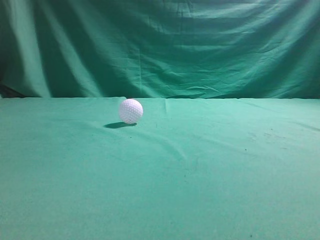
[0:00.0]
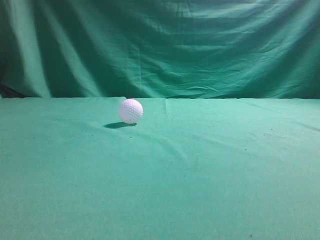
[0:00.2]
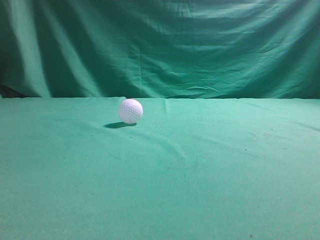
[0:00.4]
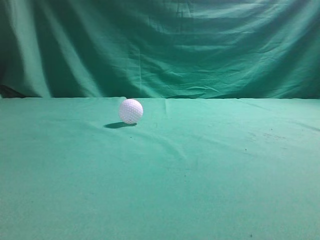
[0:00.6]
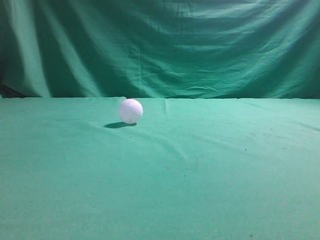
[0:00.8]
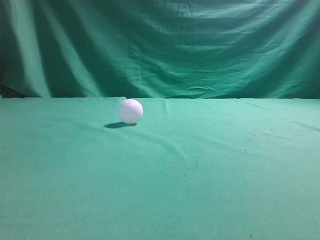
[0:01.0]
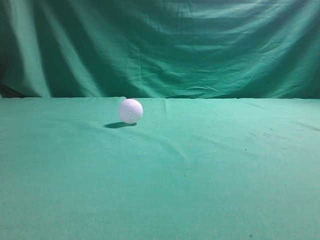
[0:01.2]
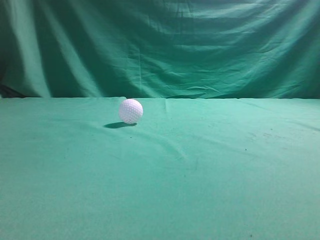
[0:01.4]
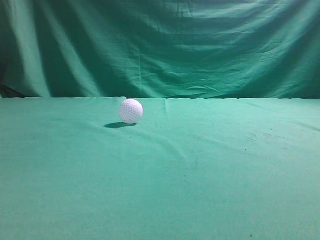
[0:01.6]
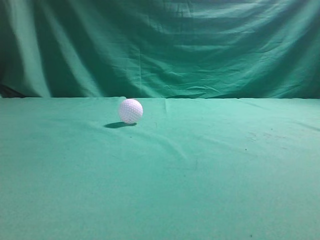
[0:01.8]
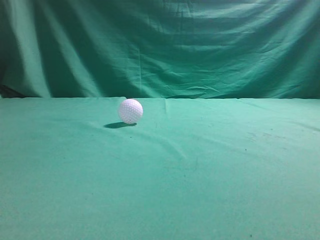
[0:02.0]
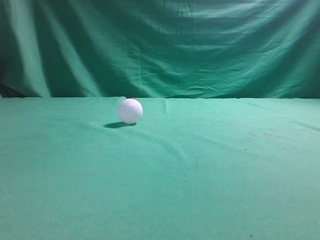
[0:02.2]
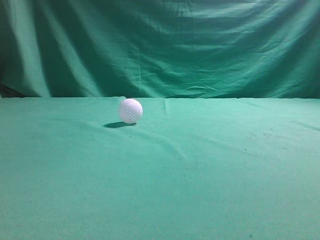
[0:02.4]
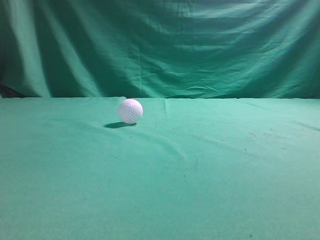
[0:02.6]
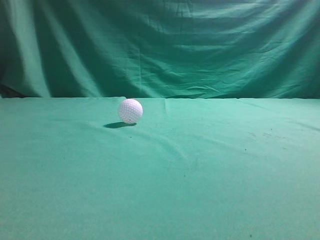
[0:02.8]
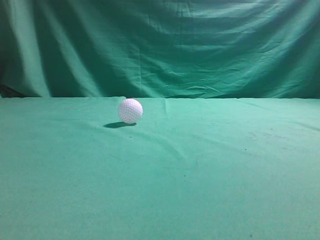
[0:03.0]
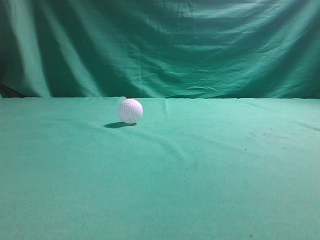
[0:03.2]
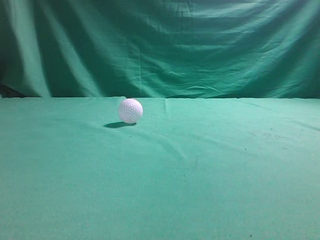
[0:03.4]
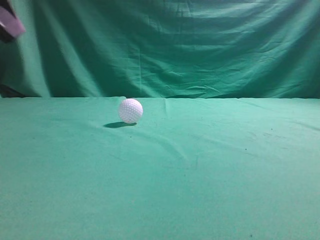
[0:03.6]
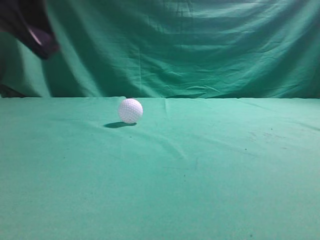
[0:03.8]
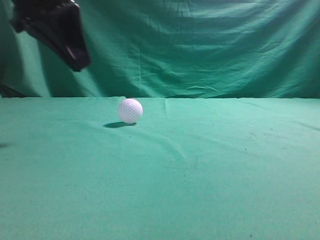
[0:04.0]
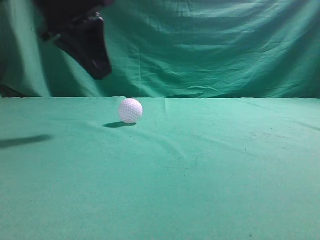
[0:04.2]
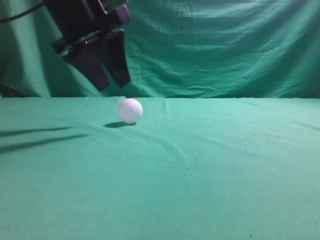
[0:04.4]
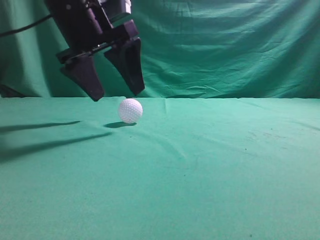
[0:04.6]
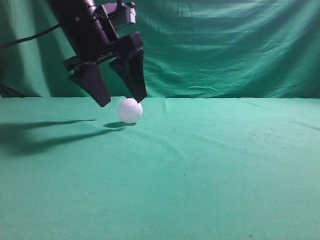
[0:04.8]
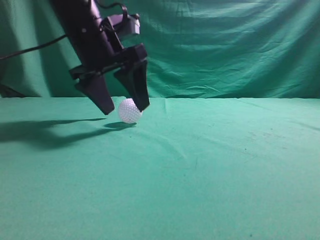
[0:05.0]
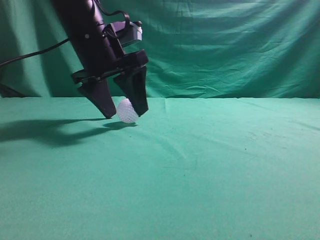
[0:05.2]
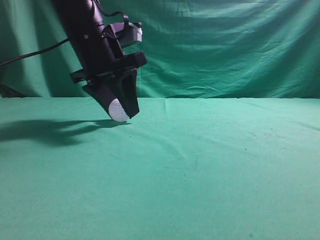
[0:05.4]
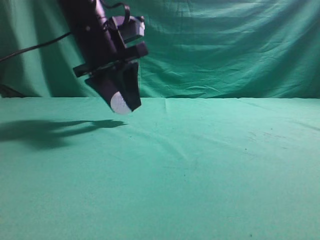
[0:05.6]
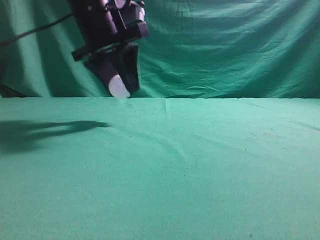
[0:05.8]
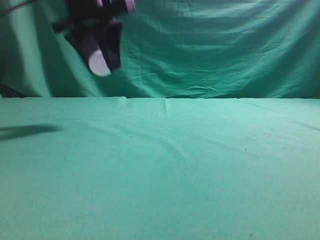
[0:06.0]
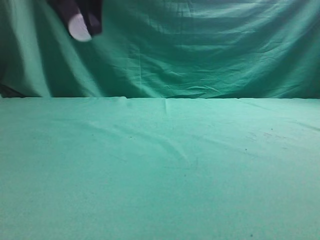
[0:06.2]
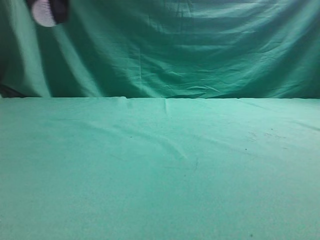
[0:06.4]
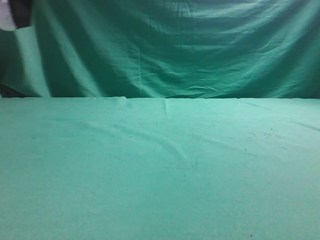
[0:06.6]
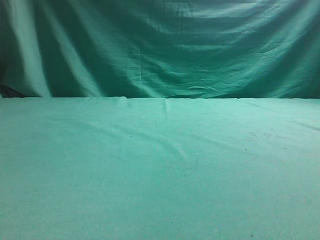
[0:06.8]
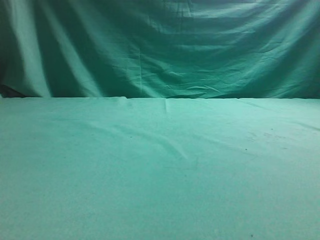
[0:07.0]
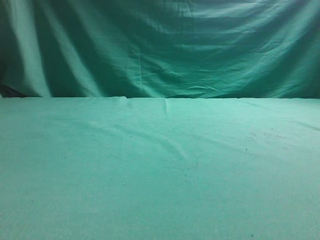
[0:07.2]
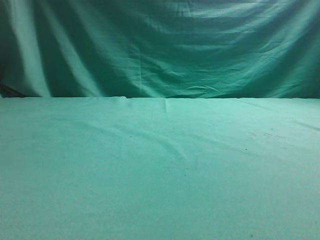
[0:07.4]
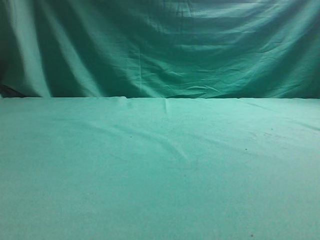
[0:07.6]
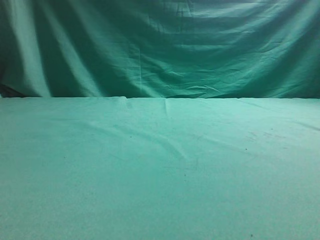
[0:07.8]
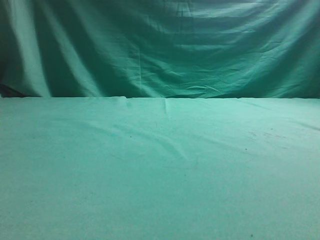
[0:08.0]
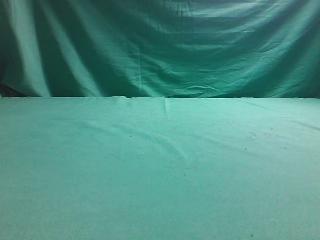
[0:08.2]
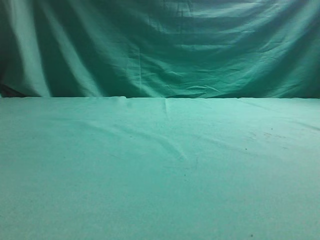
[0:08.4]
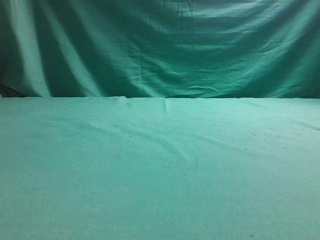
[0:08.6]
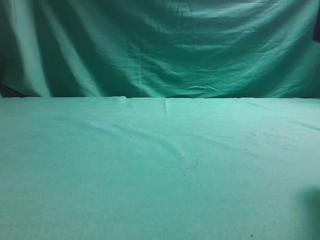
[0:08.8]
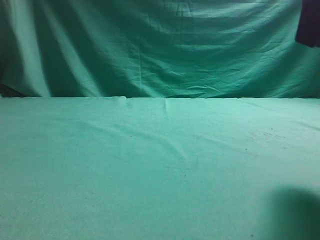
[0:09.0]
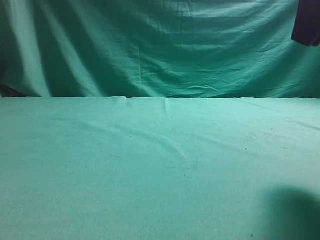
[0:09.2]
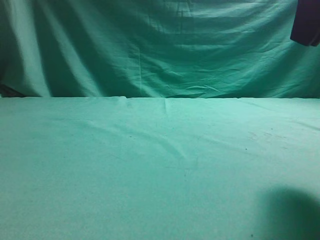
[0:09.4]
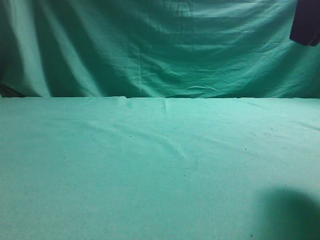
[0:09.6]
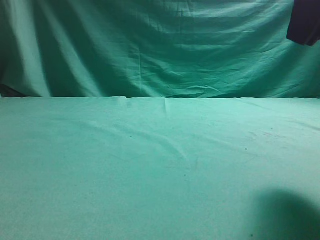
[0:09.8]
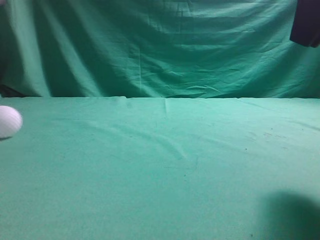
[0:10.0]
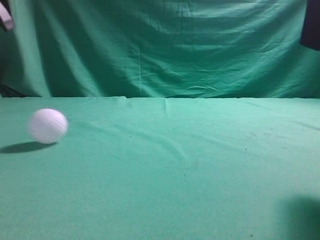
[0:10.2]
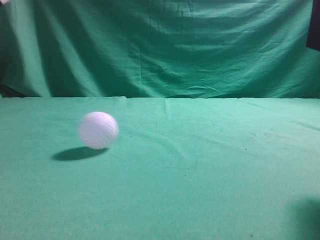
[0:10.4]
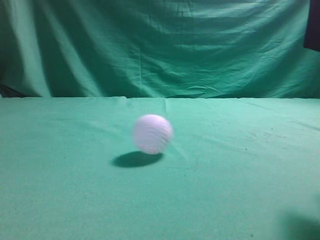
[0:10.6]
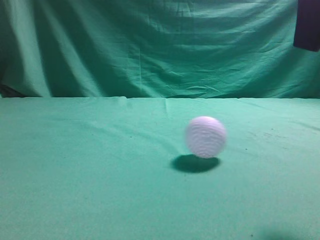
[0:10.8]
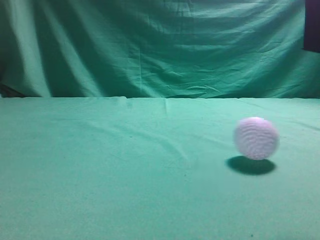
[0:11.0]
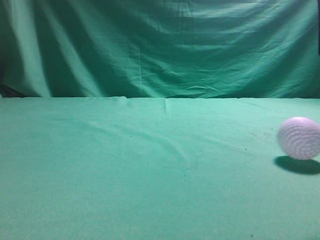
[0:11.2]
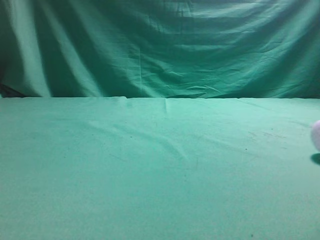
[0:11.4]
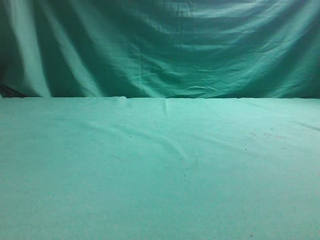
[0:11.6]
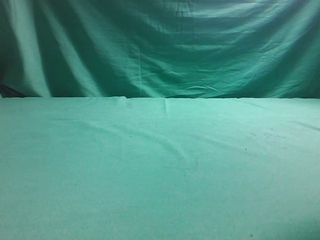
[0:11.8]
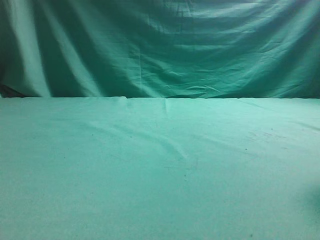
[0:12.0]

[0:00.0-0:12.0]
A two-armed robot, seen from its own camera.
Task of the whole recording: pick up the ball and place it on the plate, then pick up the ball from the plate and put it in the center of the table.
Step, 0:00.0 to 0:05.4: Grab the spherical object with your left arm.
Step, 0:05.8 to 0:09.4: Place the sphere on the white object.
0:03.0 to 0:04.4: The left gripper moves forward and to the right, about 30 cm, and opens.
0:04.4 to 0:06.0: The left gripper ends up roughly 5 cm from where it was, and opens, then closes once more.
0:06.0 to 0:07.6: The left gripper goes some 20 cm to the left and backward. Meanwhile the right gripper travels upward by roughly 10 cm.
0:07.6 to 0:09.0: The right gripper heads forward and to the left, covering approximately 15 cm.
0:09.0 to 0:10.4: The left gripper goes some 10 cm upward, and closes up.
0:10.4 to 0:12.0: The right gripper shifts roughly 5 cm to the right, and opens. Meanwhile the left gripper moves backward, some 20 cm.

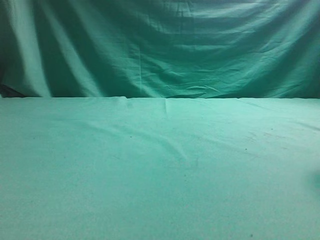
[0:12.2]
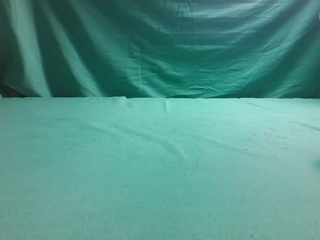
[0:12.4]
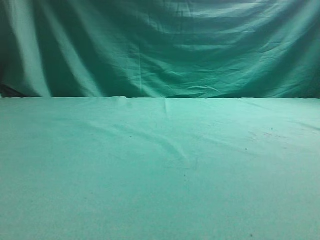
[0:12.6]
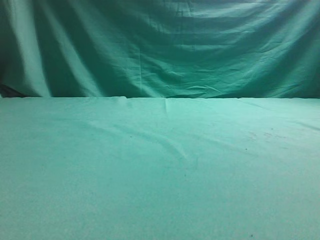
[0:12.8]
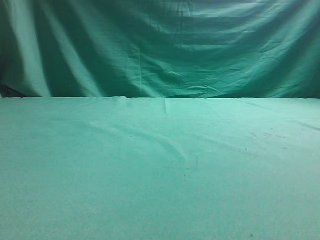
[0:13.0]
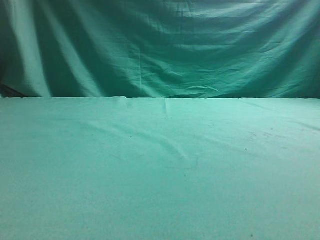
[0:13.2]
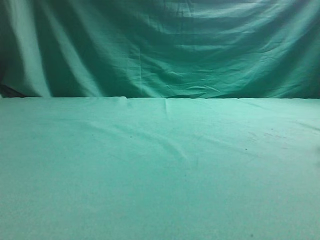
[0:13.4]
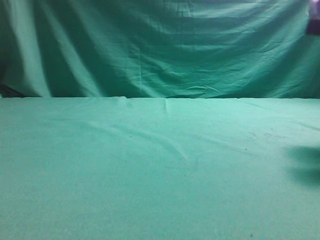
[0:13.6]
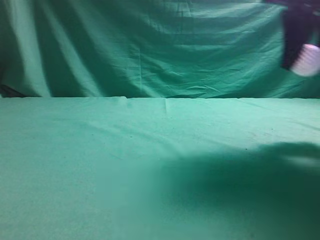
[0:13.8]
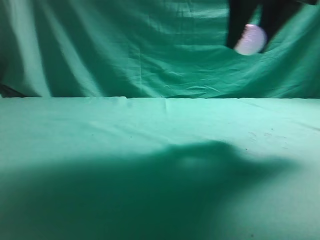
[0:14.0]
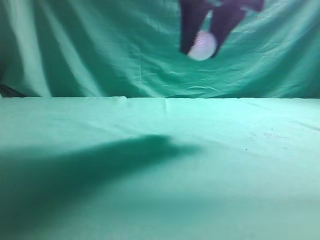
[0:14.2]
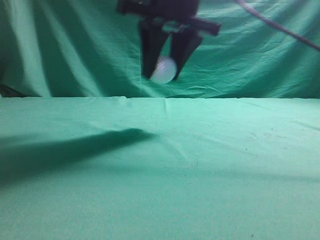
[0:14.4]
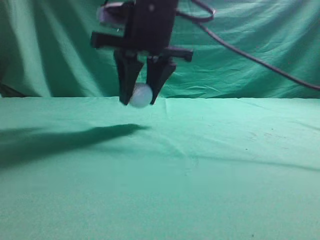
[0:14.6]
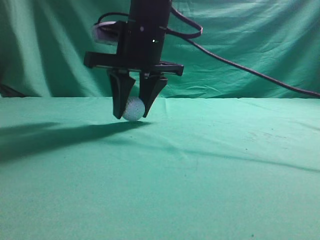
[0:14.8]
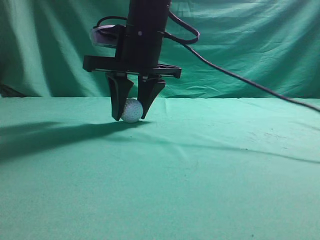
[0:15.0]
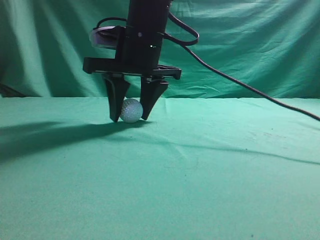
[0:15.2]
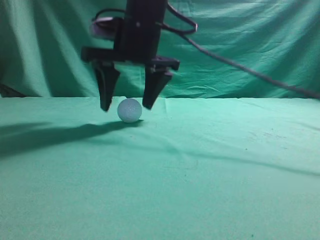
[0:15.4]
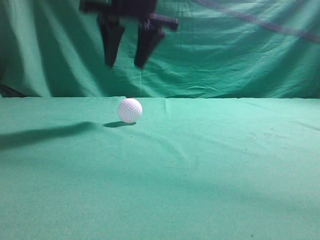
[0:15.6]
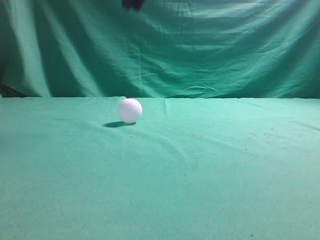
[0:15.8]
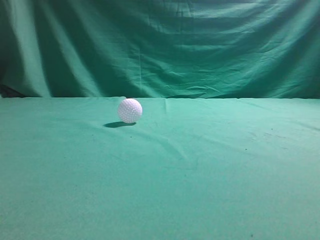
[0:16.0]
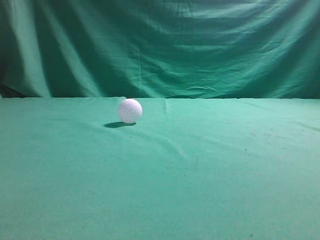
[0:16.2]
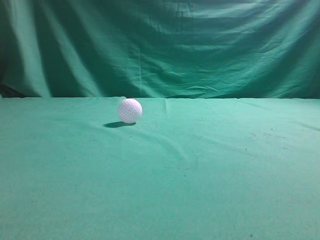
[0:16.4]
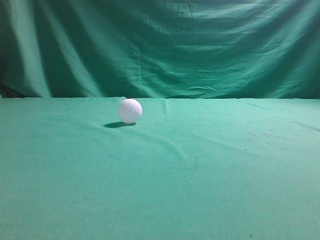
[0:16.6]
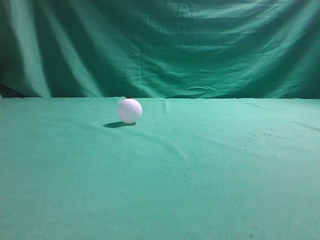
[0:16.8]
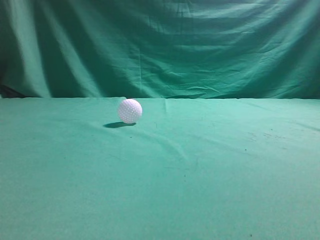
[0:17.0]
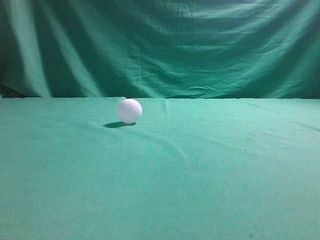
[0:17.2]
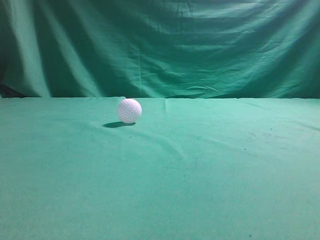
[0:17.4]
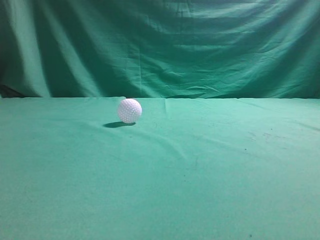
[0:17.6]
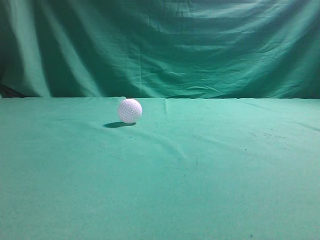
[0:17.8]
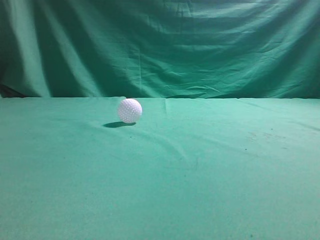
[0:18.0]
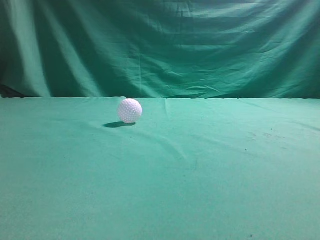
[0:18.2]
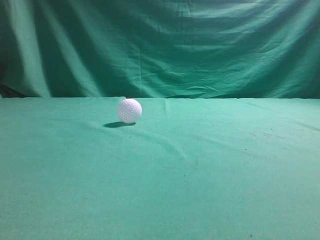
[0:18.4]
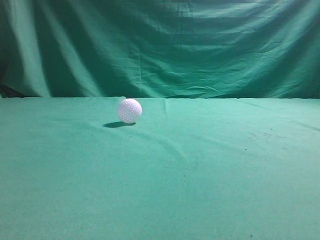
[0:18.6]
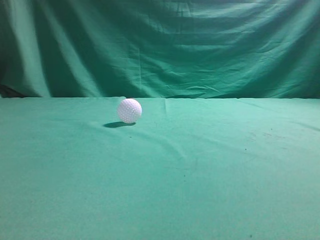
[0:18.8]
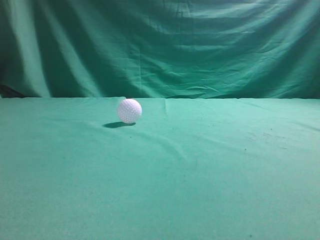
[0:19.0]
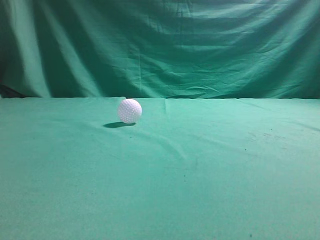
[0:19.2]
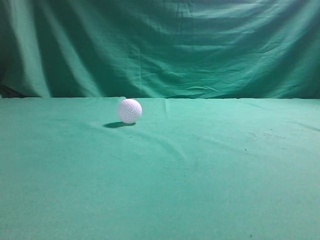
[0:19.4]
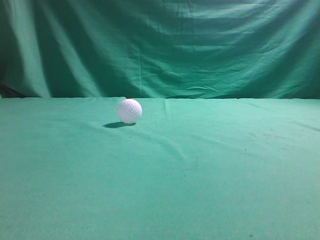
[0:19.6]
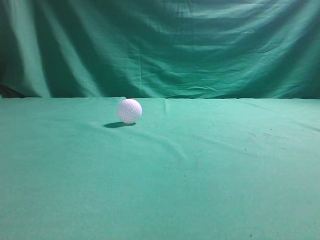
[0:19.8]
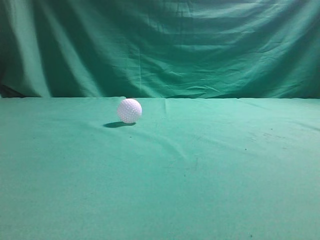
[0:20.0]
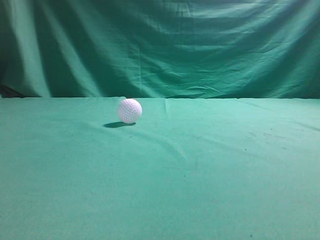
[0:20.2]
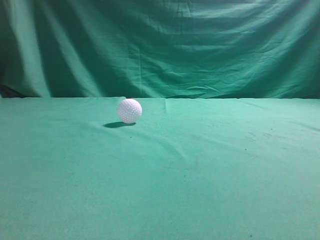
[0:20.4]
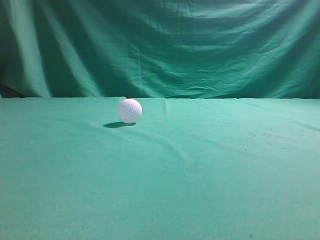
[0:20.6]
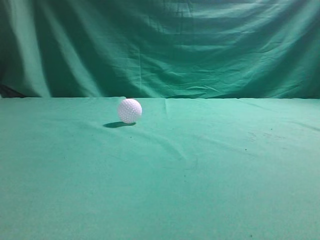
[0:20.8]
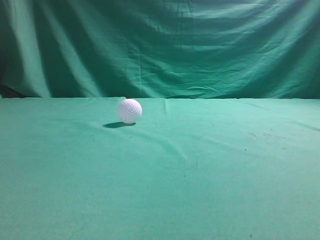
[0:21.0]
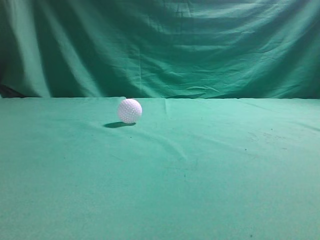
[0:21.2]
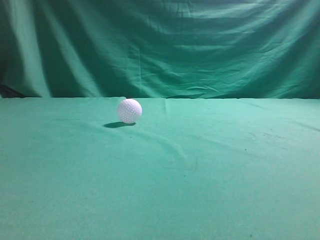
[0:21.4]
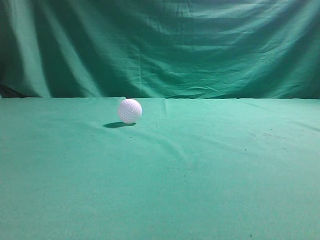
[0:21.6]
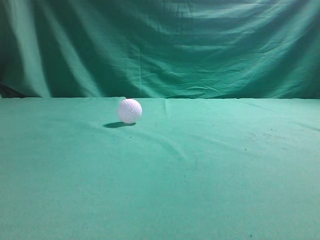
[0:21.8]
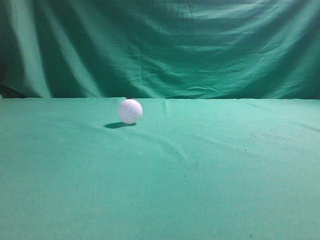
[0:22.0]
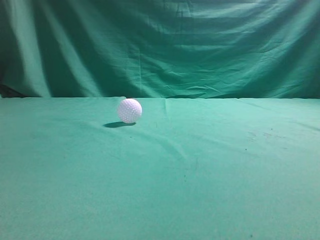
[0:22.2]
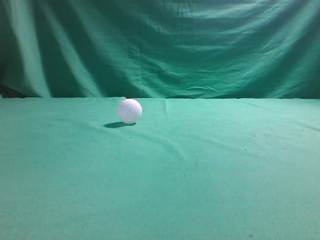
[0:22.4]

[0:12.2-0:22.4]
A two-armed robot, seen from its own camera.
Task of the whole recording: pick up the ball and place it on the plate, then pick up the ball from the plate and put it in the center of the table.
Step, 0:13.8 to 0:15.4: Put the picked-up object on the table.
0:12.2 to 0:13.6: The right gripper heads forward, covering about 5 cm, and closes up.
0:13.6 to 0:15.2: The left gripper shifts by roughly 5 cm. The right gripper shifts roughly 30 cm to the left.
0:15.2 to 0:16.6: The right gripper heads upward, backward and to the right, covering roughly 35 cm, and closes.
